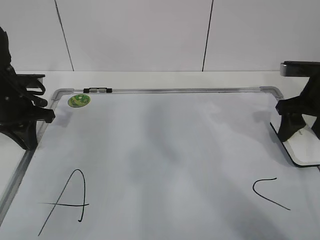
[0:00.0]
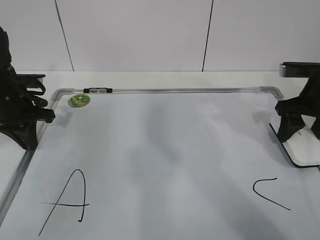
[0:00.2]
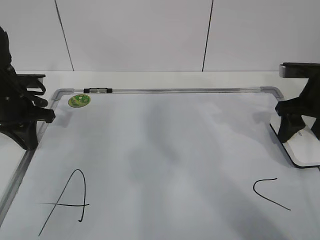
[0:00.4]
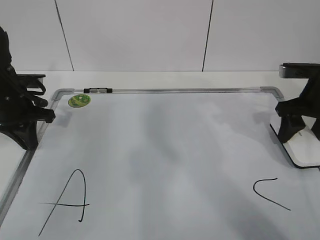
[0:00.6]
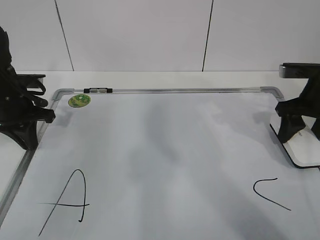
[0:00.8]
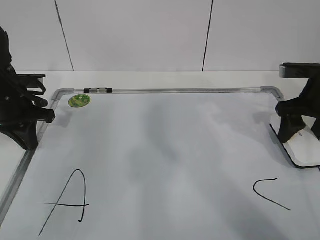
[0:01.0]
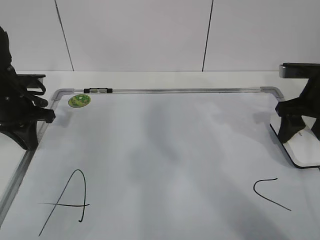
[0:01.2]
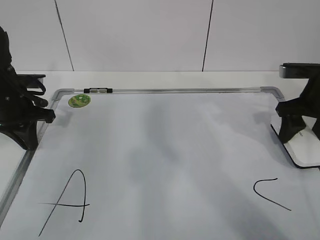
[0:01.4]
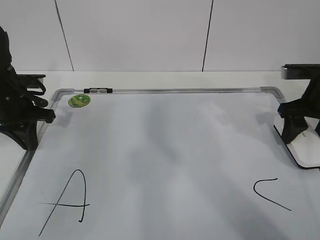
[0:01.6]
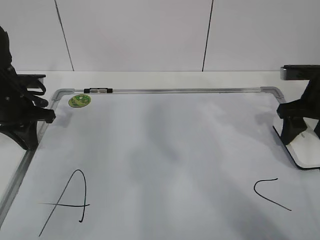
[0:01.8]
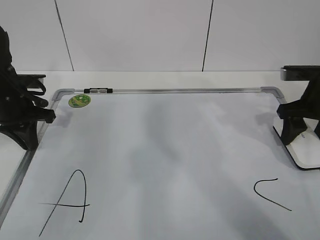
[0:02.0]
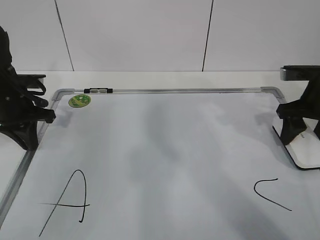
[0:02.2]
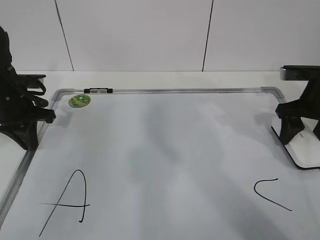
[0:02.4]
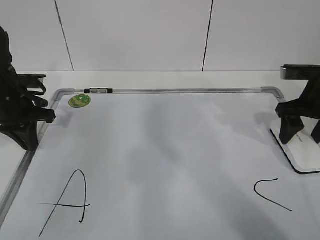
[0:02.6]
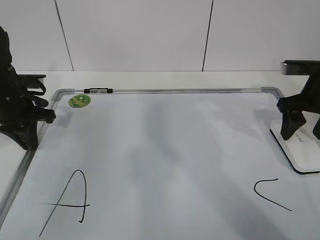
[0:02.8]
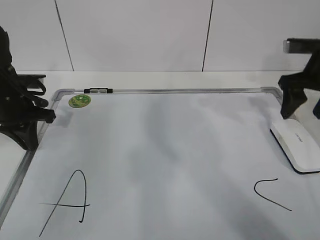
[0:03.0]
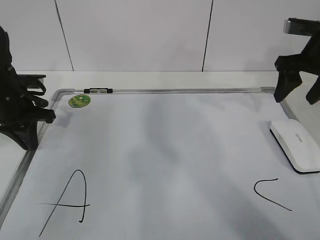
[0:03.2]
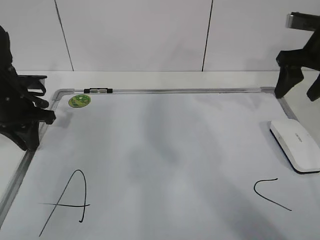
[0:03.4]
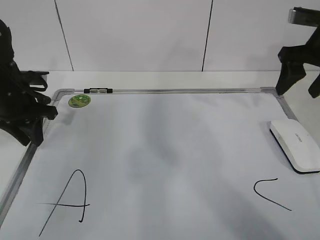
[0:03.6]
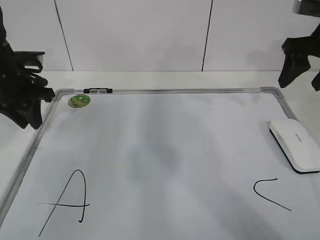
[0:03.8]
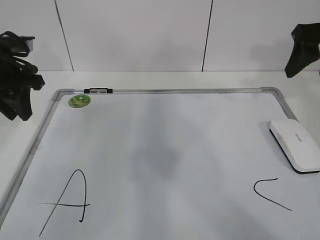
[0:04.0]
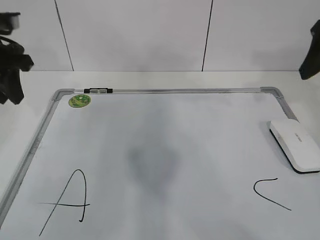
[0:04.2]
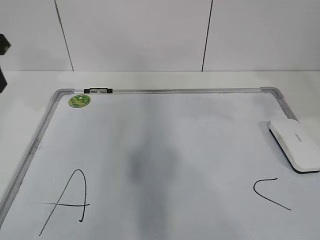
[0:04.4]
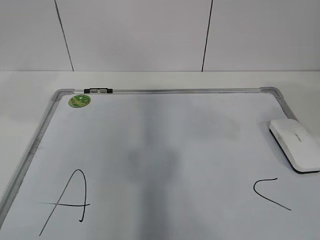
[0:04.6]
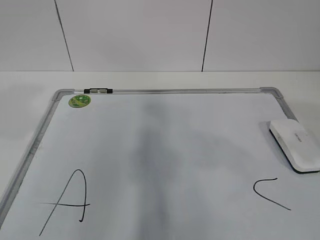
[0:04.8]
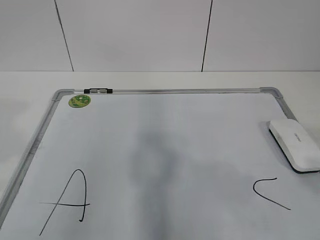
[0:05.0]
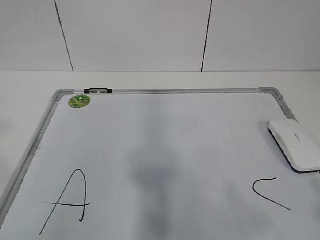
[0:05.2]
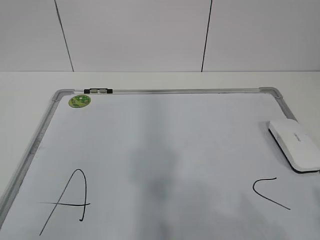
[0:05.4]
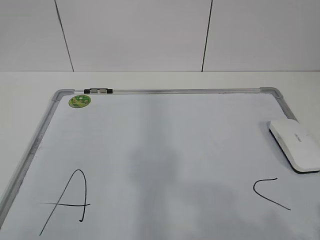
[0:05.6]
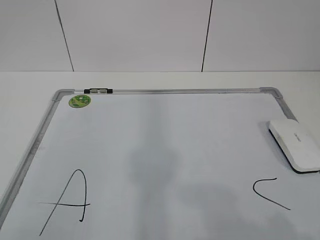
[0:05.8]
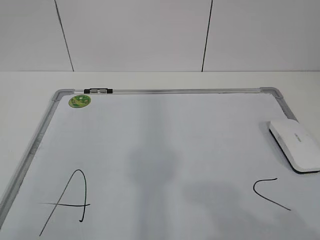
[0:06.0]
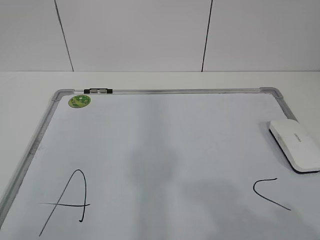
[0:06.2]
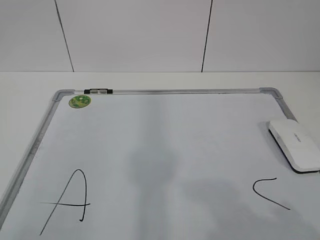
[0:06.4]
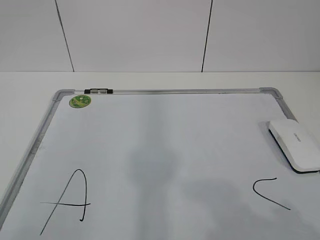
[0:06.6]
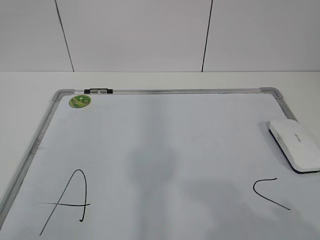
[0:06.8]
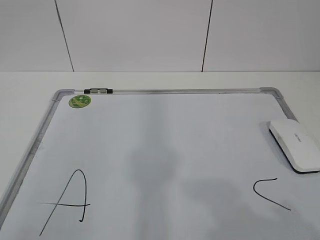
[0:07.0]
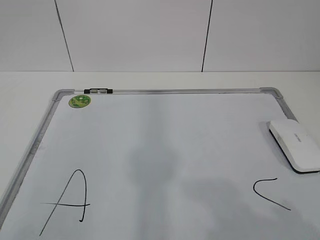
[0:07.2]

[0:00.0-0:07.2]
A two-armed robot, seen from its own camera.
Task of the whole recording: pick up the eraser on the blackboard and erase the letter "B".
0.0 to 1.4 s: Both grippers stay about where they are.
1.4 to 2.8 s: The right gripper opens up.
2.8 to 4.4 s: The right gripper heads upward and backward, covering about 20 cm. The left gripper moves upward, approximately 15 cm, and opens its fingers.
4.4 to 5.8 s: Both grippers travel together backward, some 30 cm.

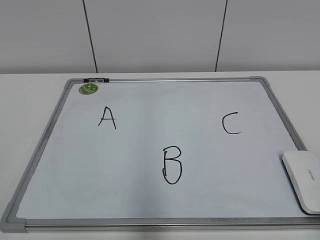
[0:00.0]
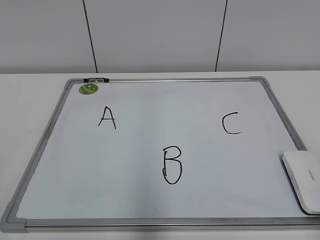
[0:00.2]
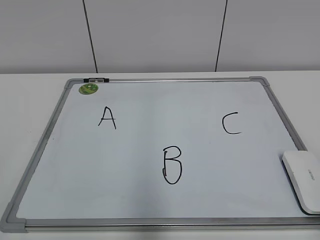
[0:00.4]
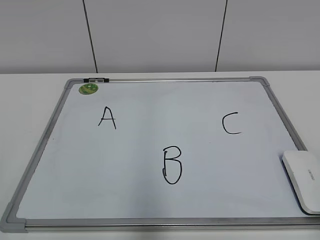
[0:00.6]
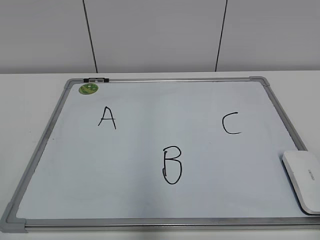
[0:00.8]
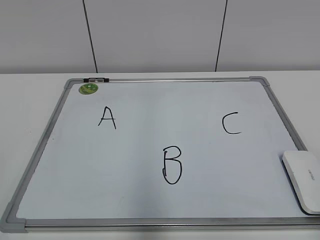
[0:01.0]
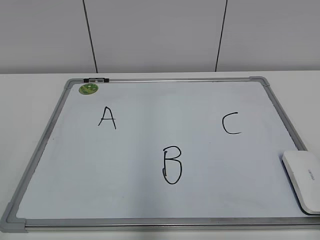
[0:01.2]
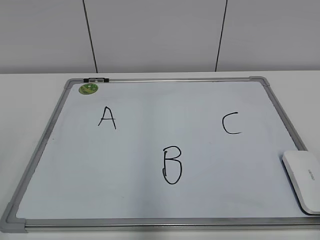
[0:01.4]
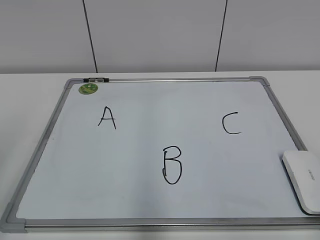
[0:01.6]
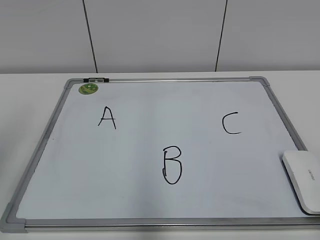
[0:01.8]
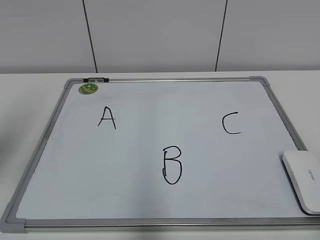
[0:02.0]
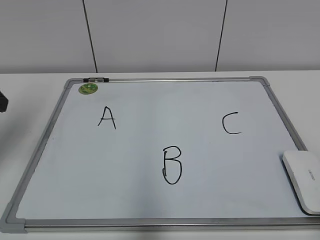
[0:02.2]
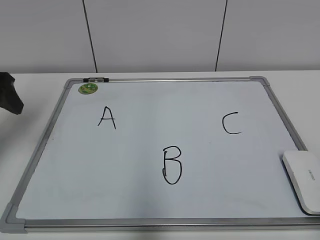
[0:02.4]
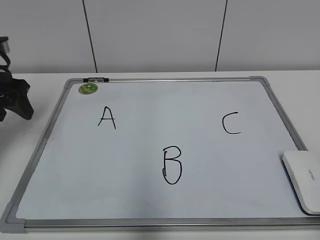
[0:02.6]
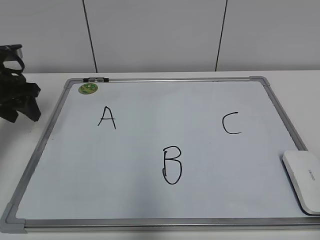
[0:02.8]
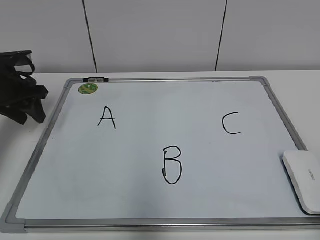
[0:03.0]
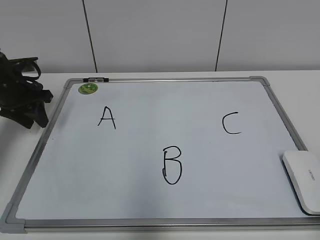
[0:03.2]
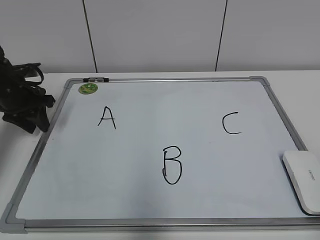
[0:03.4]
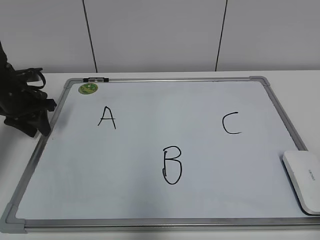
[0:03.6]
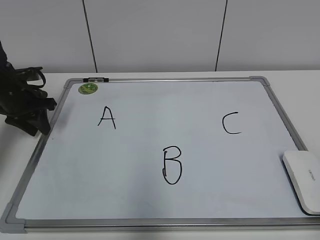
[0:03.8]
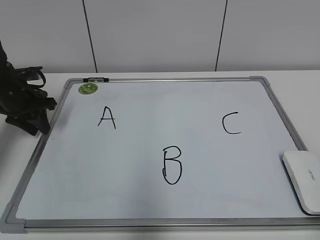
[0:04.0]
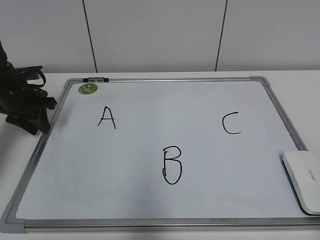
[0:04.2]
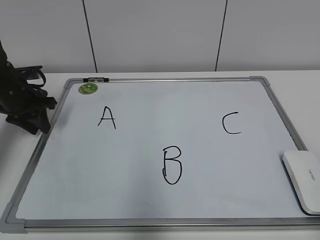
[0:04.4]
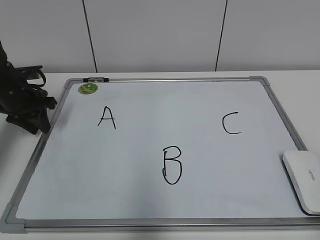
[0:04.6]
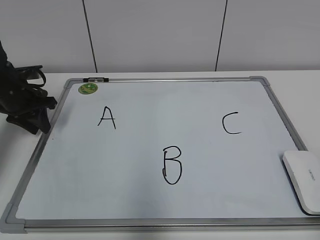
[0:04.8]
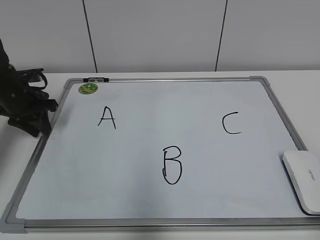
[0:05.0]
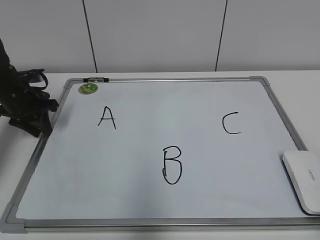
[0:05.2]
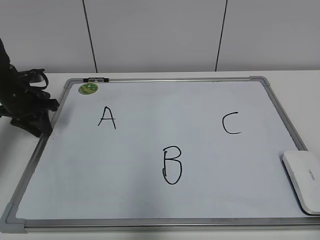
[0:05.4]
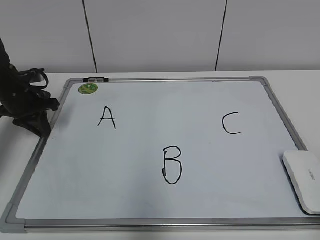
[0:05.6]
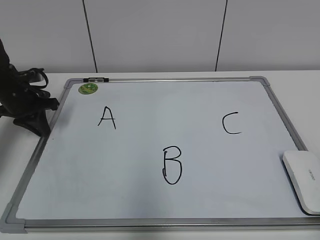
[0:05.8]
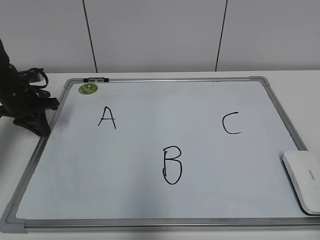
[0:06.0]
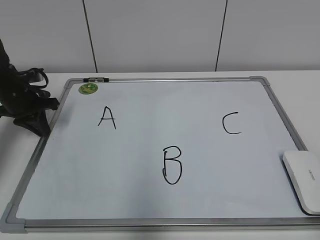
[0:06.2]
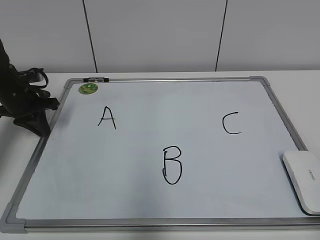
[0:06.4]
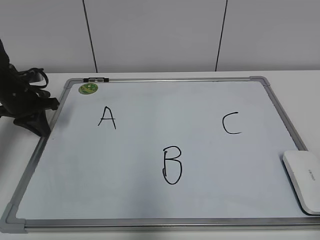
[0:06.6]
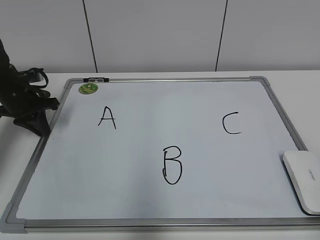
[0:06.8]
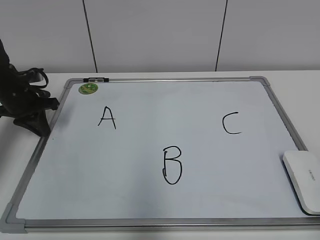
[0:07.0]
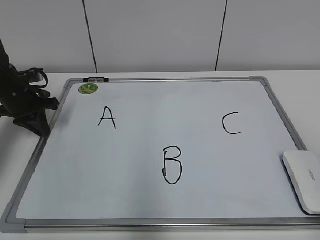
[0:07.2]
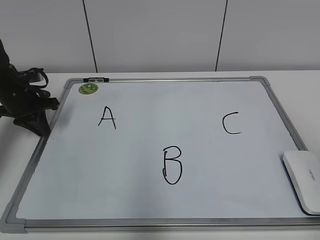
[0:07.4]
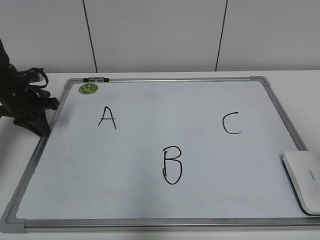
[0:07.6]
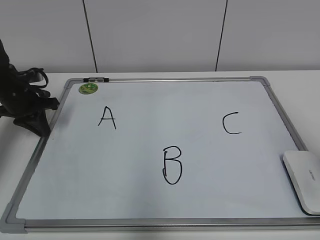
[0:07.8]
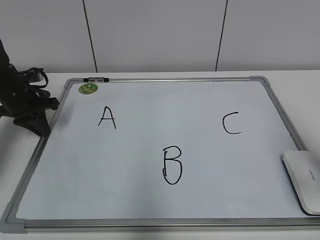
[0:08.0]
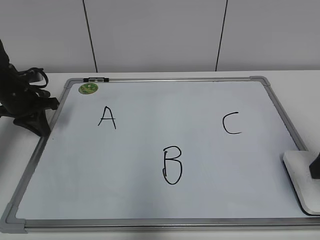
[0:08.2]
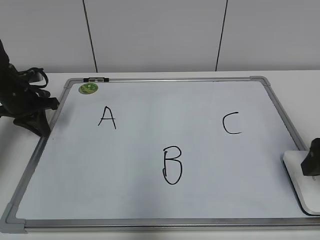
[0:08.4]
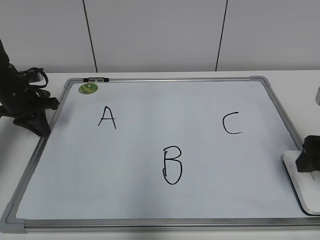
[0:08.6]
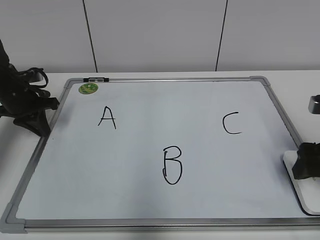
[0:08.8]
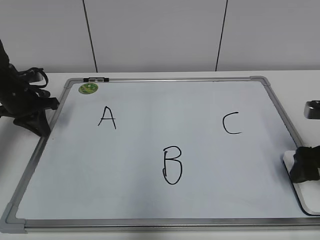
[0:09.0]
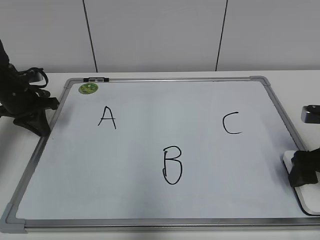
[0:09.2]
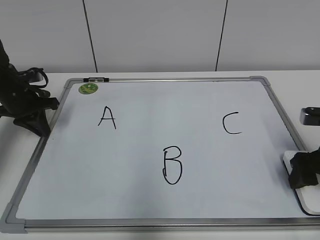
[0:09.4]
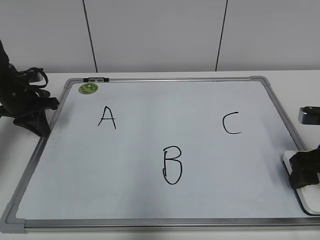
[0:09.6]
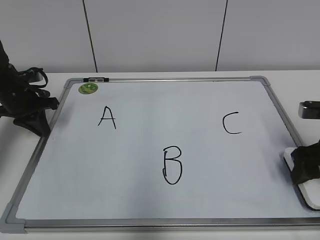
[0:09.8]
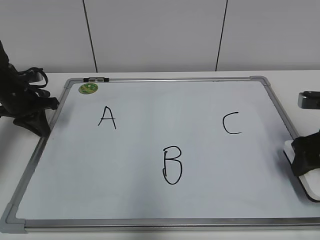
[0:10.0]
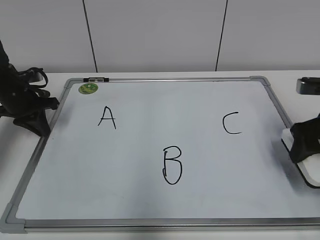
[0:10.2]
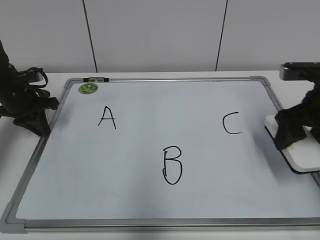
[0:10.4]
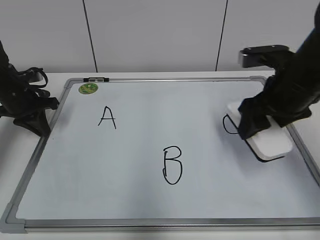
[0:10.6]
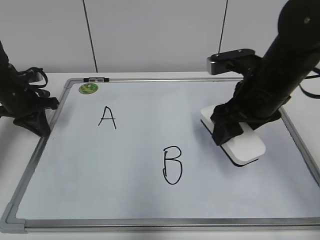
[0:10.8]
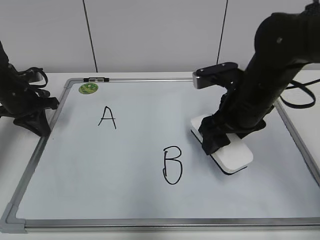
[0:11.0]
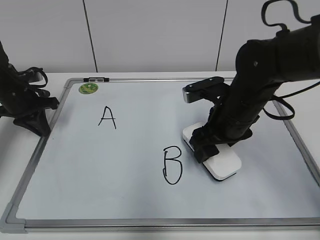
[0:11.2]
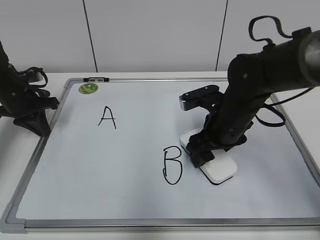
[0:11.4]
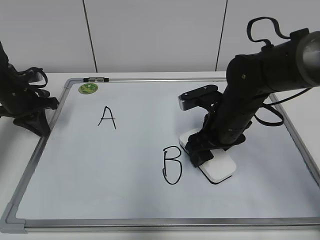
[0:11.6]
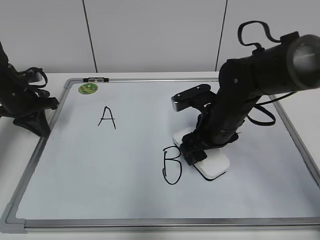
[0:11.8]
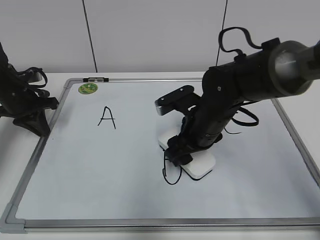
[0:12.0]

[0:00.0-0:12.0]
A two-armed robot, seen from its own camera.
Task of the whole recording: pick up the eraser on the blackboard and erase the letter "B".
Step, 0.0 to 4.8 s: Hold the drawing board steady with your left hand.
1.6 to 3.0 s: The left gripper heads forward and downward, covering approximately 35 cm, and closes.
3.0 to 4.4 s: The grippers make only small movements.
4.4 to 6.0 s: The left gripper closes up.
7.6 to 9.0 s: The right gripper moves forward and downward, roughly 20 cm.
9.0 to 10.4 s: The right gripper goes some 5 cm upward, and closes.
10.4 to 12.0 s: The right gripper moves to the left and downward, approximately 20 cm.

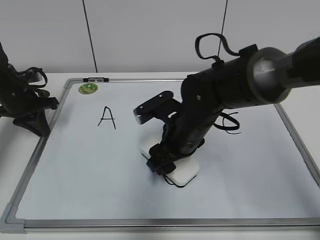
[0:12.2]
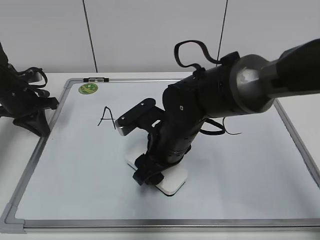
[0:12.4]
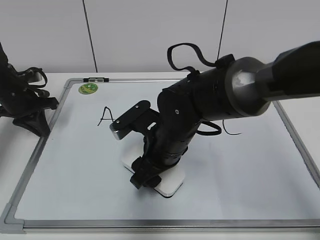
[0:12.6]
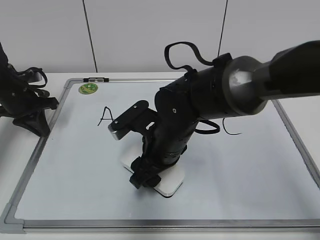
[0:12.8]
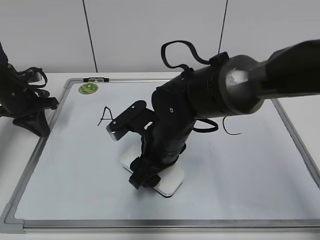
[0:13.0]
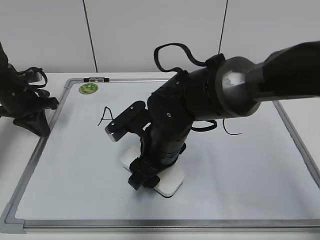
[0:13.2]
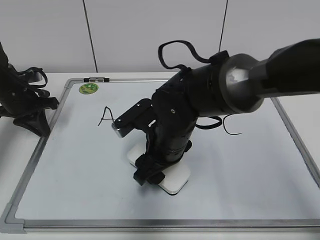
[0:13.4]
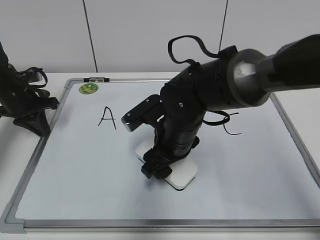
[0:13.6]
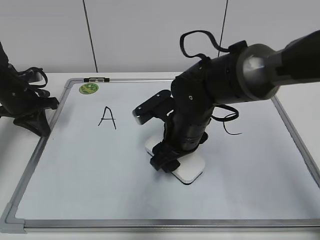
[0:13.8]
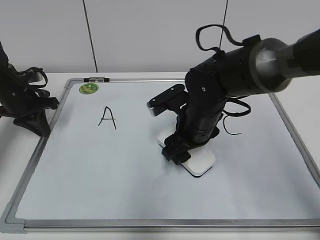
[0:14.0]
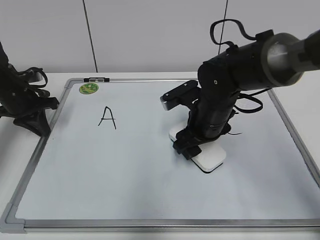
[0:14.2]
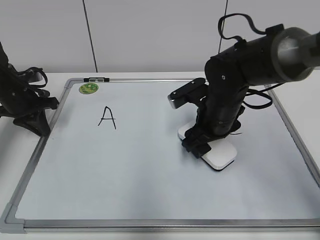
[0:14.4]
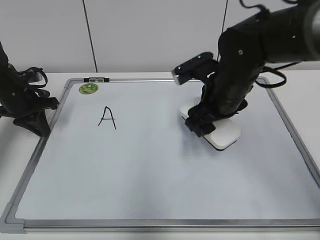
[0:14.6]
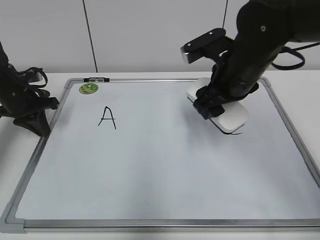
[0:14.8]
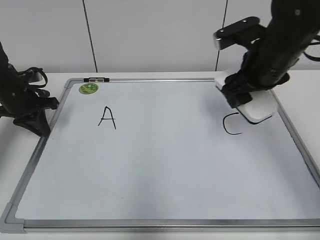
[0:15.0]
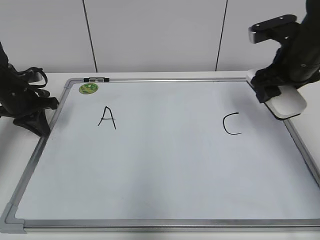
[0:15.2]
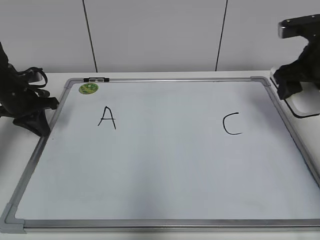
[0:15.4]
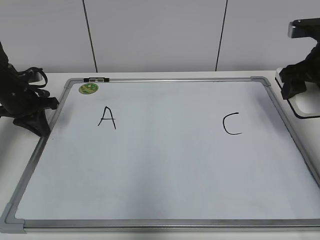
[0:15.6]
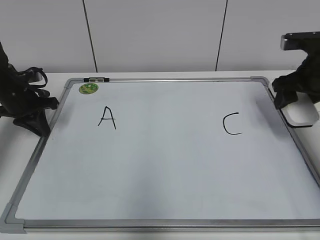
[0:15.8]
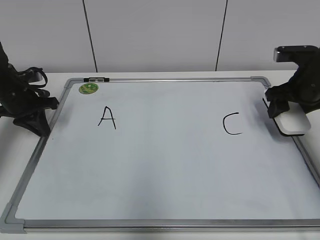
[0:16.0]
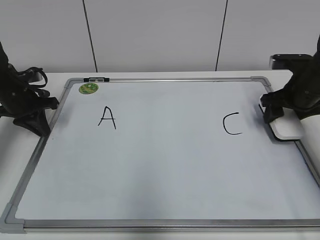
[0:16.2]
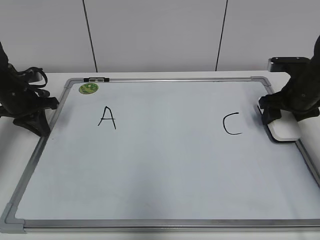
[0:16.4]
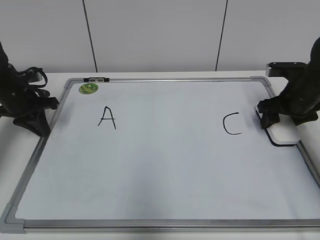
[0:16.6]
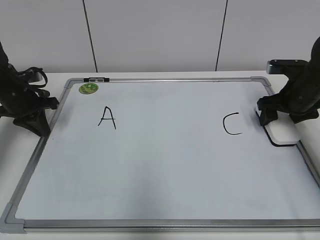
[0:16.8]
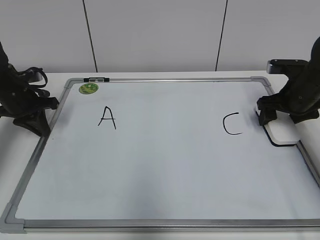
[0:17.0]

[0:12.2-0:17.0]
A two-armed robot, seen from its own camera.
Task of the whole recording: pick up the eraser on the blackboard and erase the letter "B".
Step, 12.2 to 14.2 s: Erase the letter B with your right hand.
Step, 14.4 to 16.6 s: Put down the eraser with your right hand.
12.2 to 13.8 s: There are only small adjustments of the grippers.
13.8 to 15.4 s: The right gripper is displaced to the right and upward by some 25 cm.
15.4 to 17.0 s: The right gripper moves downward, some 10 cm, and opens its fingers.
